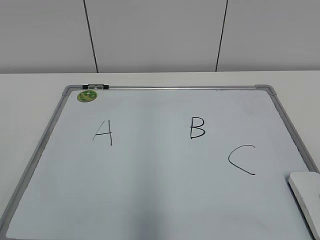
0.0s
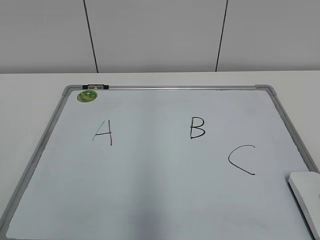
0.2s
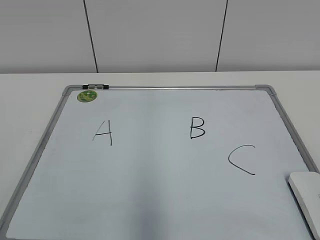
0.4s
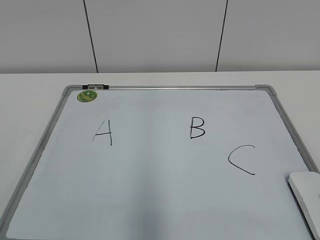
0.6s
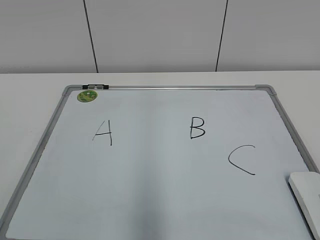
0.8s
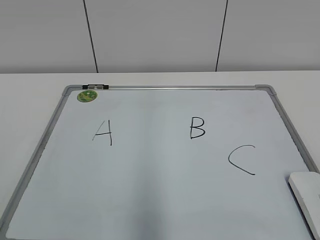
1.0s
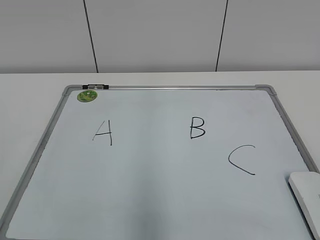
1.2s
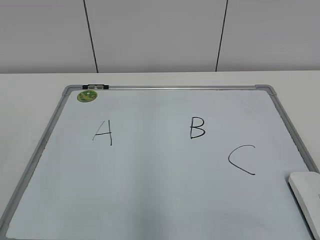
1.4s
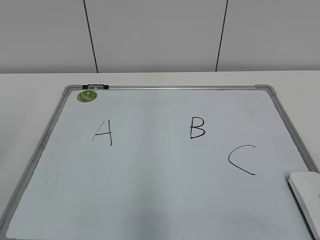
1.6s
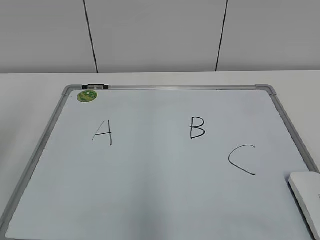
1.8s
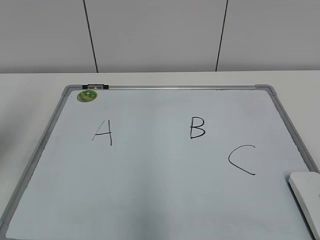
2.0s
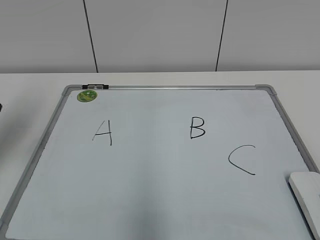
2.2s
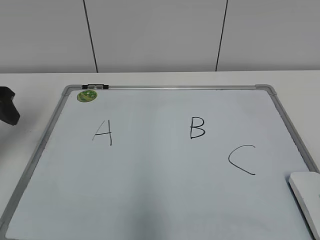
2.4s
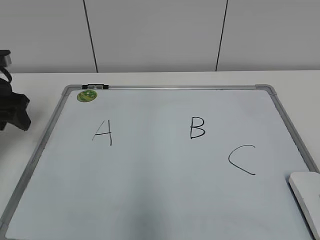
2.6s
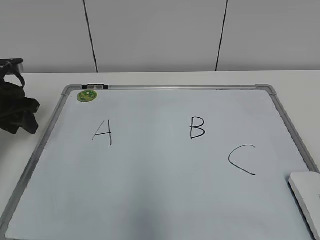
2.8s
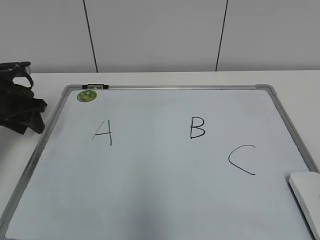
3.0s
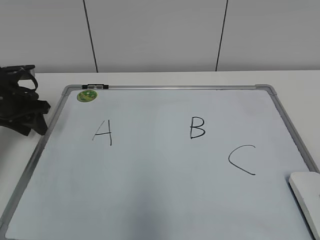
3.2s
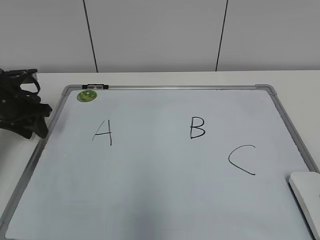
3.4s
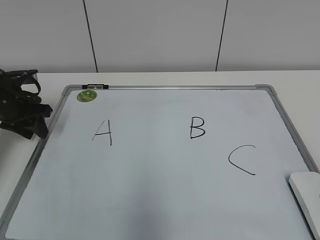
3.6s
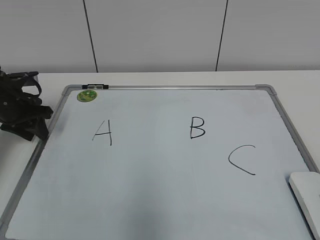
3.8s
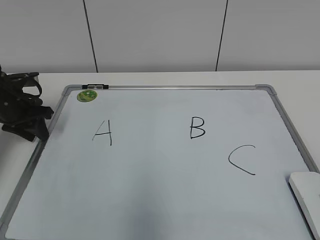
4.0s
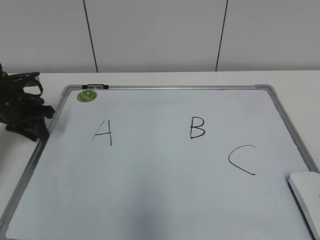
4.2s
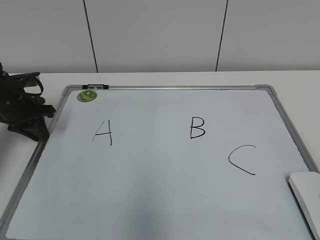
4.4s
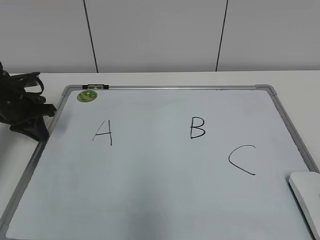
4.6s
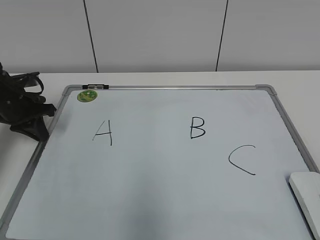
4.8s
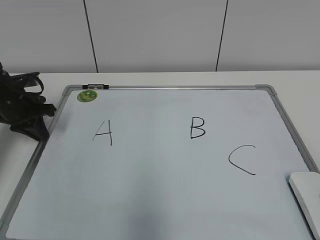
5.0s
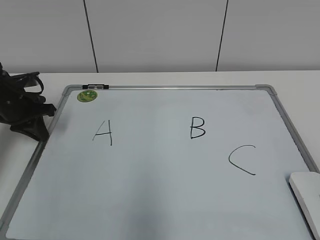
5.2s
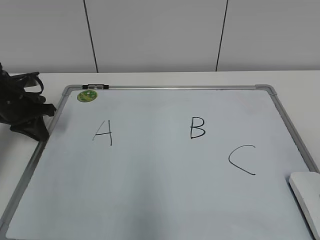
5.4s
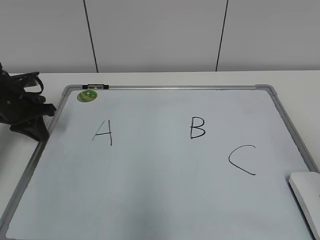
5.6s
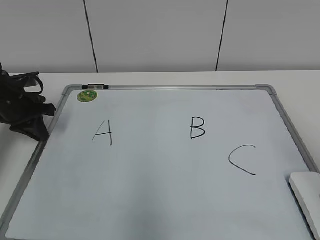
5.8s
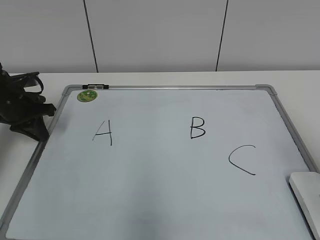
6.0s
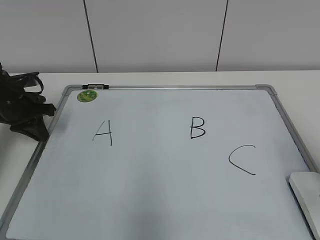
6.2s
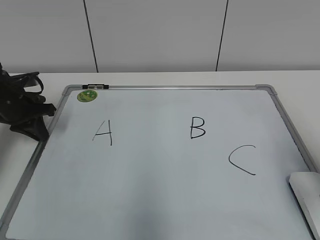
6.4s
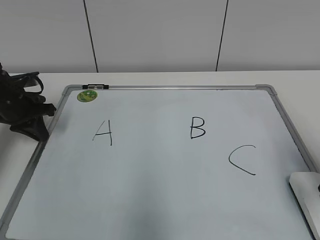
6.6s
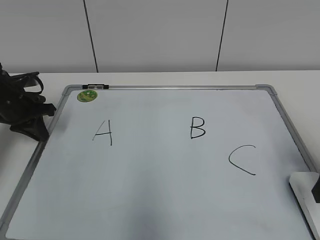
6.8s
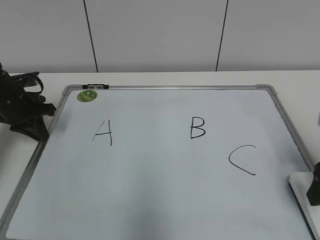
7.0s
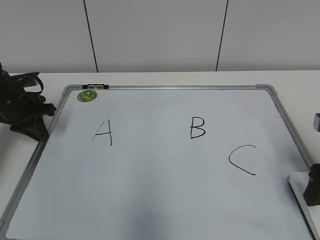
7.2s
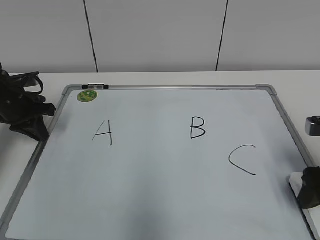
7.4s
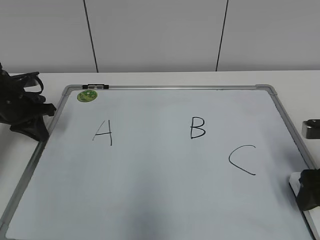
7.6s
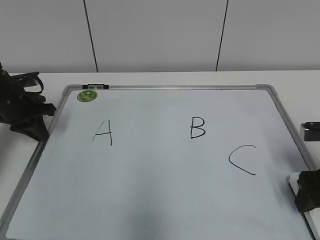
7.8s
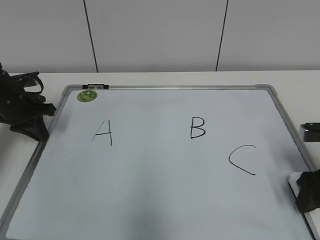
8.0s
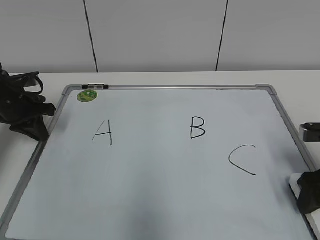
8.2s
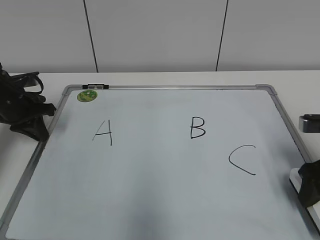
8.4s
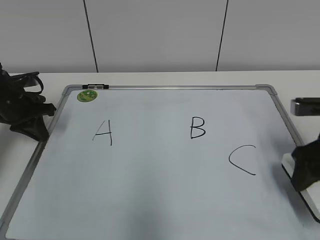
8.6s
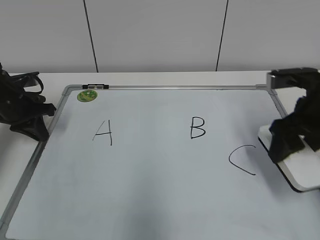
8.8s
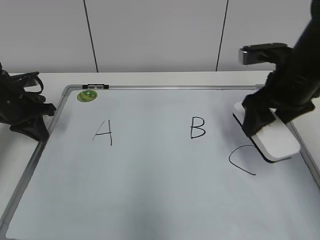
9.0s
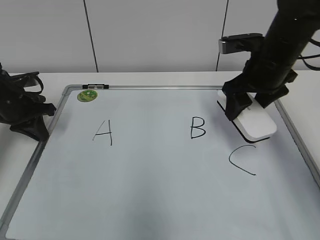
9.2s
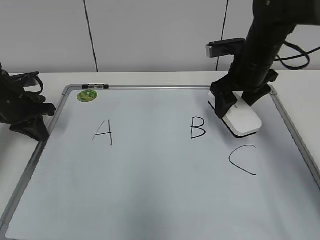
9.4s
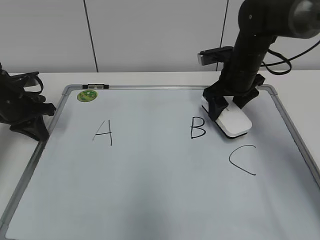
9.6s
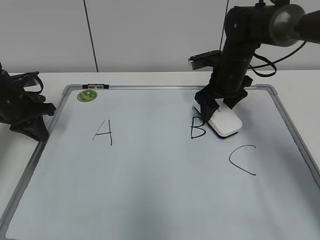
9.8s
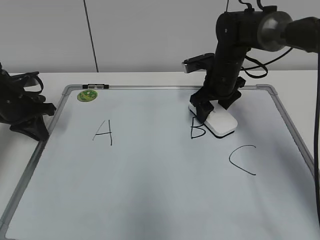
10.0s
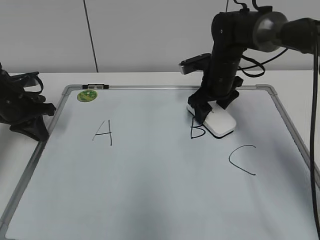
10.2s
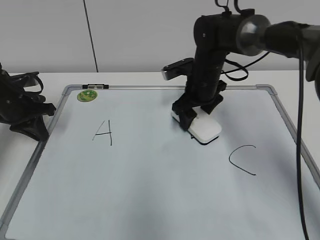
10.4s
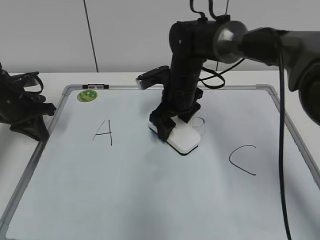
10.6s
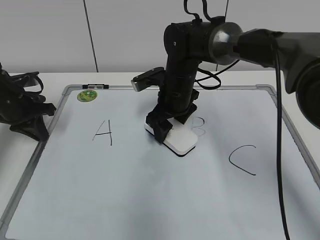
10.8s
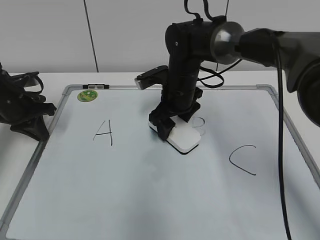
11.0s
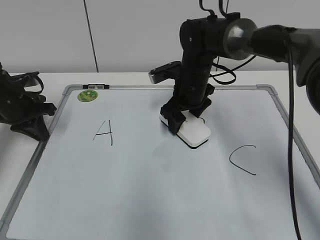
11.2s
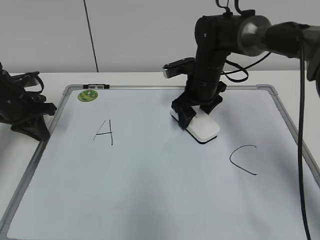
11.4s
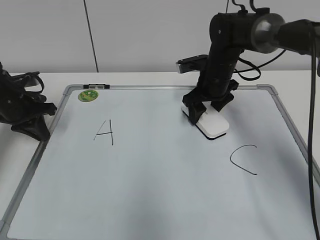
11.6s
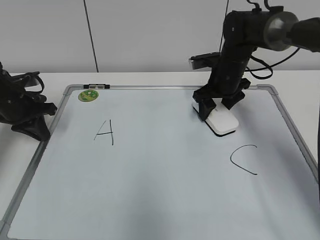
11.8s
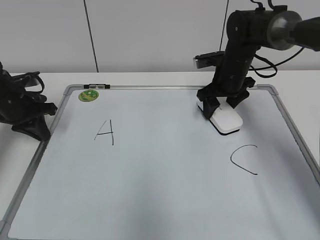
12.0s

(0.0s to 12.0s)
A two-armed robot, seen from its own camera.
Task of the whole recording: pick up the eraser on the blackboard and erase the letter "B".
Step, 0.0s - 4.6s: Hold the drawing board steady with your left hand.
1.6s - 3.0s: The left gripper shifts some 35 cm forward and downward, and closes.
3.0s - 4.4s: The grippers make only small movements.
6.0s - 7.6s: The right gripper moves downward and forward, about 15 cm.
7.6s - 9.0s: The right gripper heads upward, forward and to the left, covering roughly 15 cm.
9.0s - 10.4s: The right gripper heads forward, to the left and downward, covering approximately 20 cm.
10.4s - 12.0s: The right gripper is displaced to the right by about 5 cm.

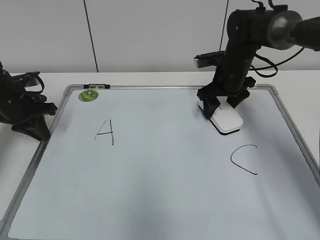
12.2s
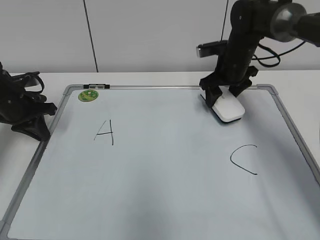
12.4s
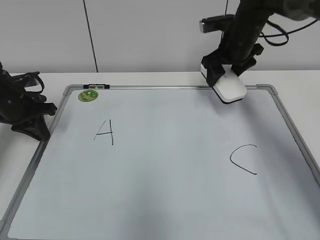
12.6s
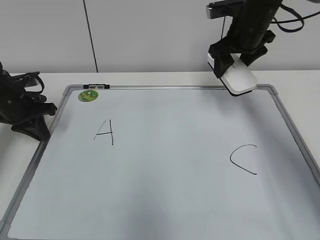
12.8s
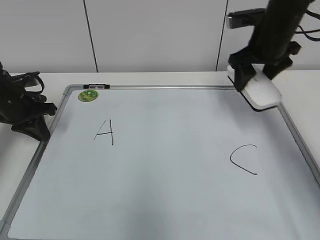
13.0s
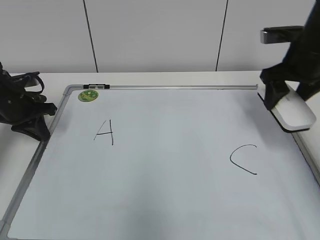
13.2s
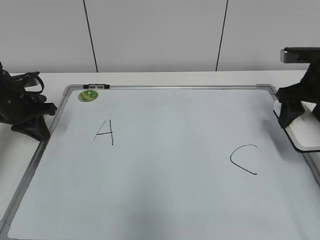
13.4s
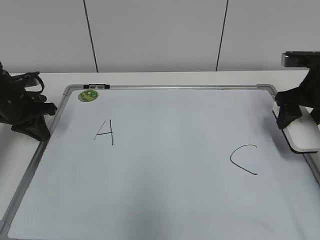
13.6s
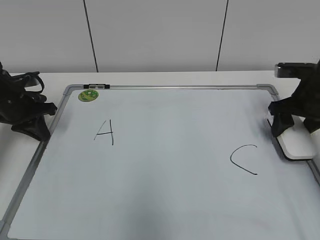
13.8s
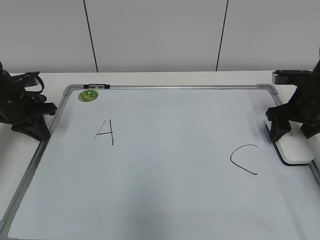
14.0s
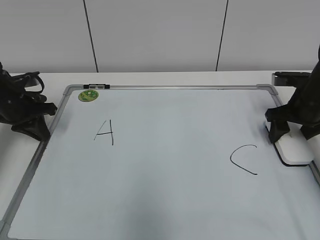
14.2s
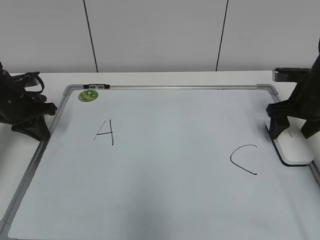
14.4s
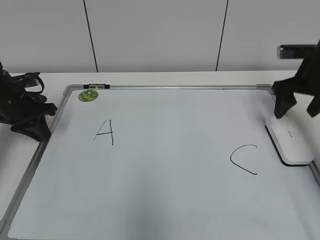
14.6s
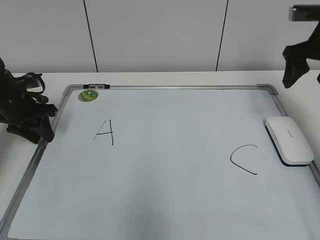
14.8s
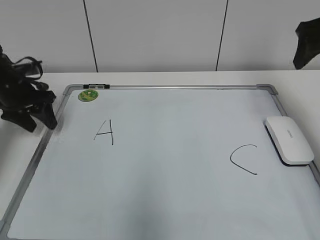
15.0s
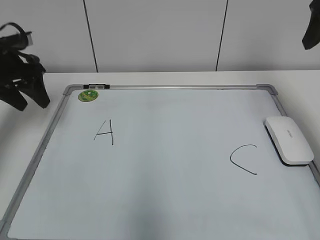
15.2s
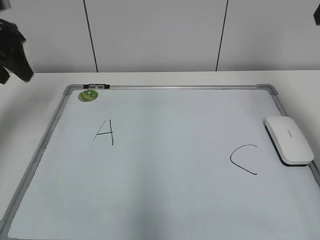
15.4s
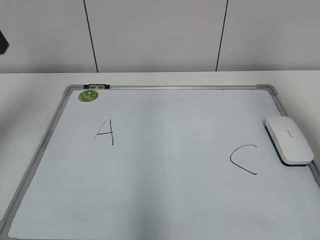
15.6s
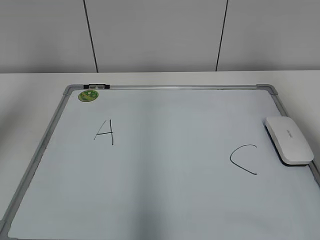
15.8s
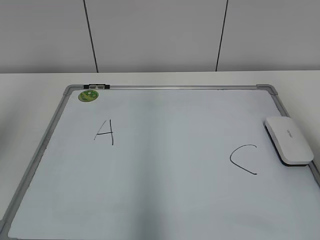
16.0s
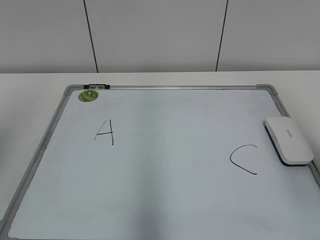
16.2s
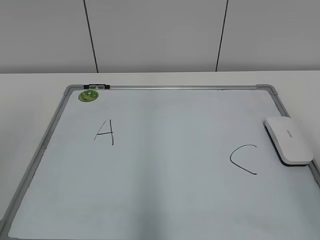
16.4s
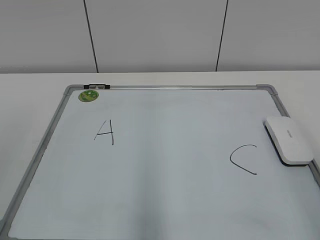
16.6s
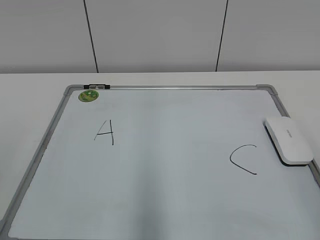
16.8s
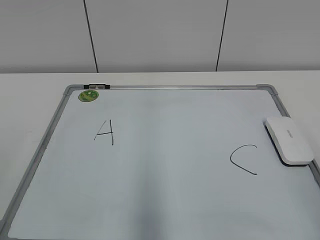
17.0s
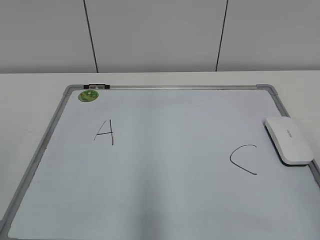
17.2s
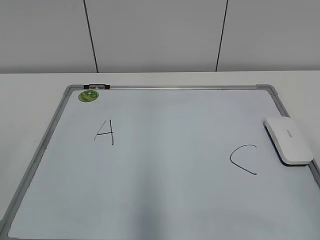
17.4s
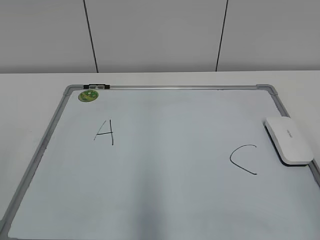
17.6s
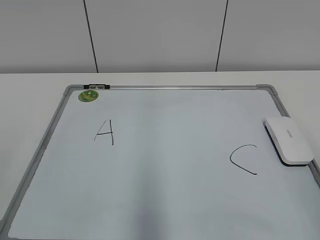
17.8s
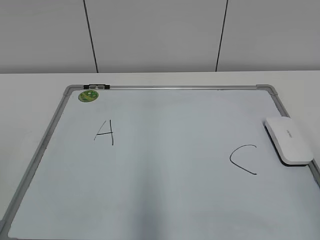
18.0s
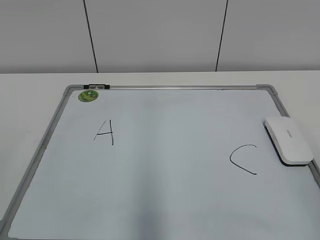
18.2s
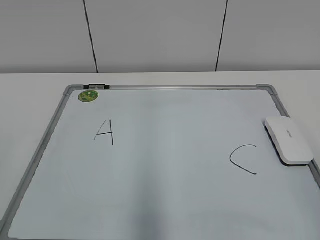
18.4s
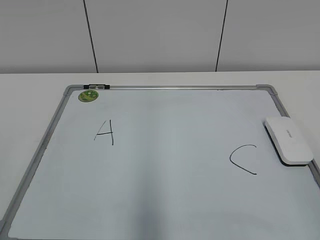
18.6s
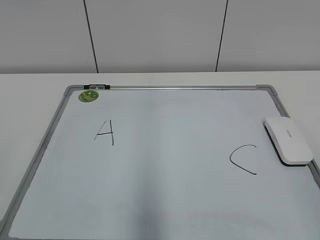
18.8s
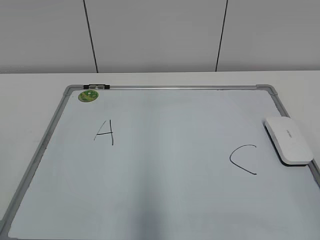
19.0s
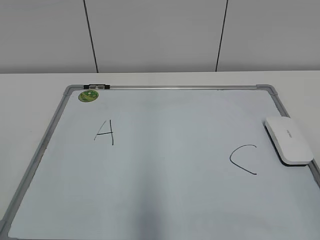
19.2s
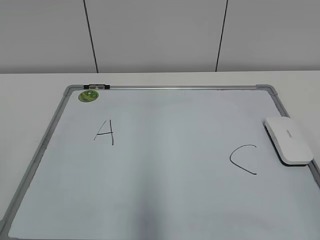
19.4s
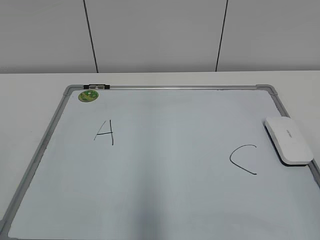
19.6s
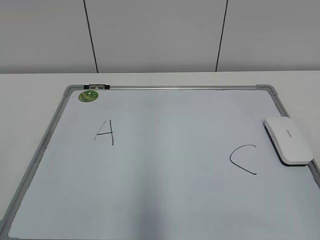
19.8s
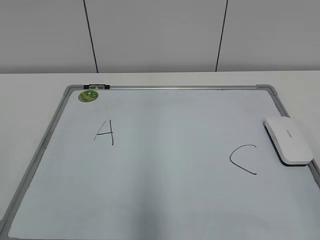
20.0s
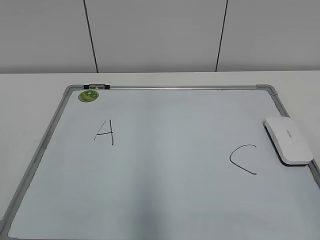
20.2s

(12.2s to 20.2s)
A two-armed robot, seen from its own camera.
Task of the whole recording: pick up the eraser on the blackboard and erase the letter "B".
Step, 12.4s - 14.2s: Put down the eraser with your right hand.
12.2s - 13.8s: The right gripper shifts some 15 cm to the right and backward.
13.8s - 15.4s: The two grippers go some 20 cm upward. The left gripper opens.
15.4s - 17.0s: The right gripper shifts roughly 30 cm backward and downward; the left gripper moves backward, approximately 35 cm.
18.6s - 20.2s: Both grippers stay about where they are.
